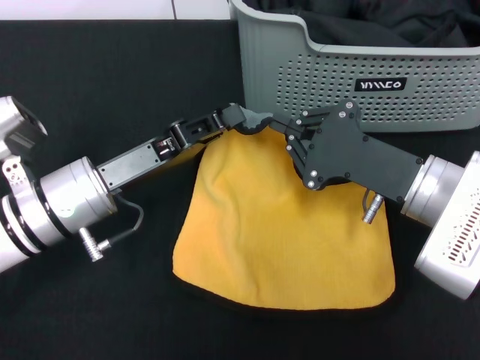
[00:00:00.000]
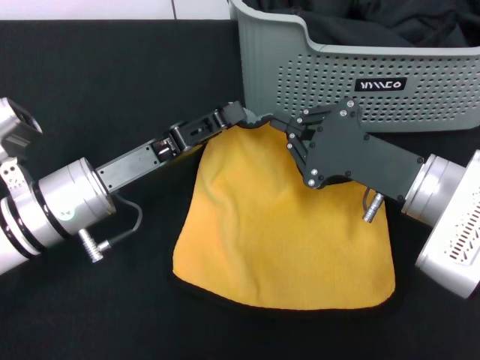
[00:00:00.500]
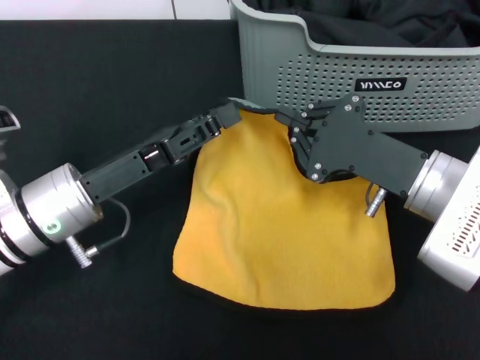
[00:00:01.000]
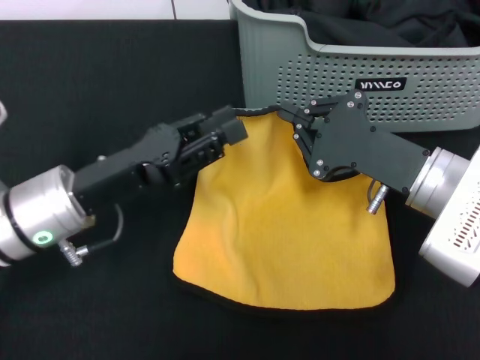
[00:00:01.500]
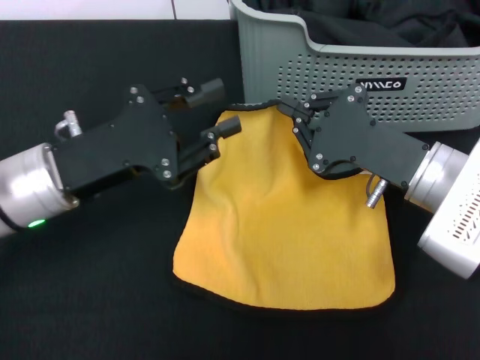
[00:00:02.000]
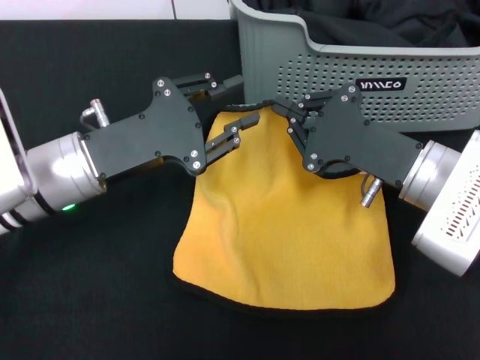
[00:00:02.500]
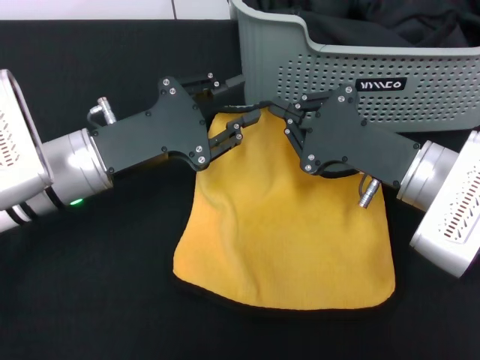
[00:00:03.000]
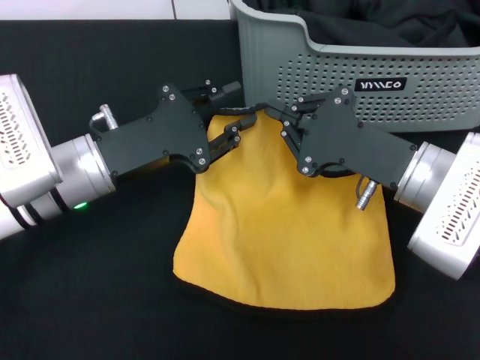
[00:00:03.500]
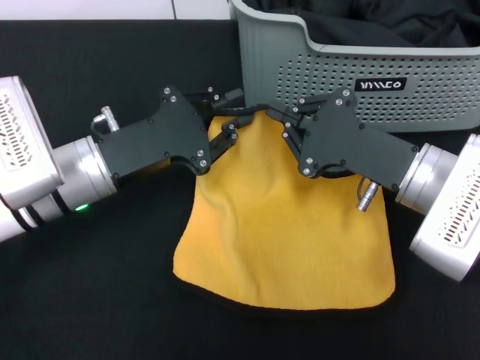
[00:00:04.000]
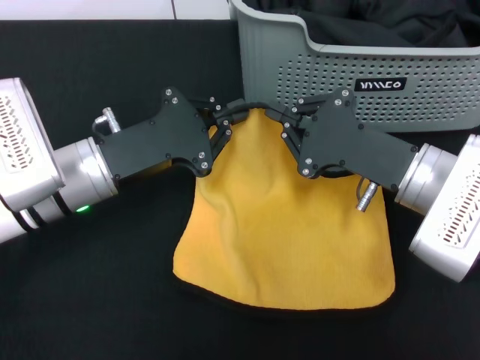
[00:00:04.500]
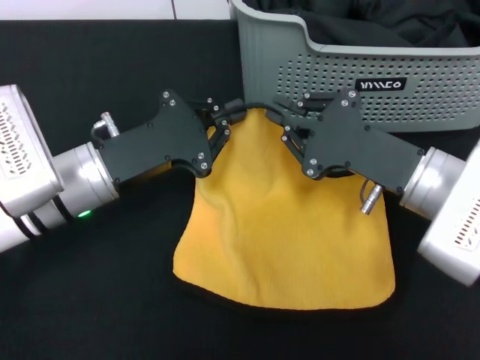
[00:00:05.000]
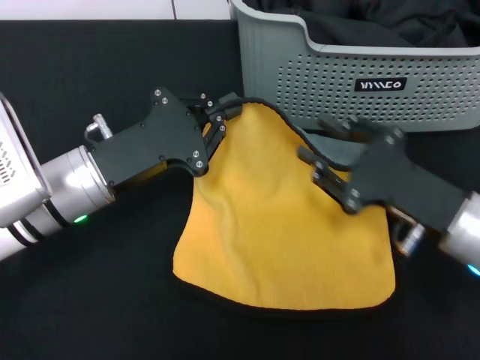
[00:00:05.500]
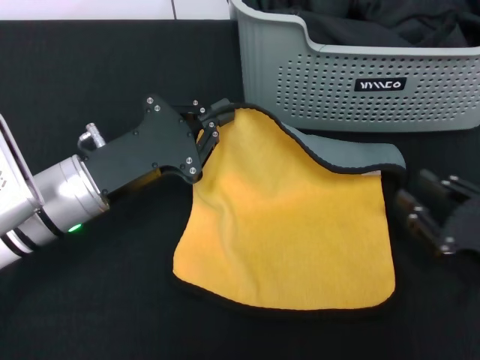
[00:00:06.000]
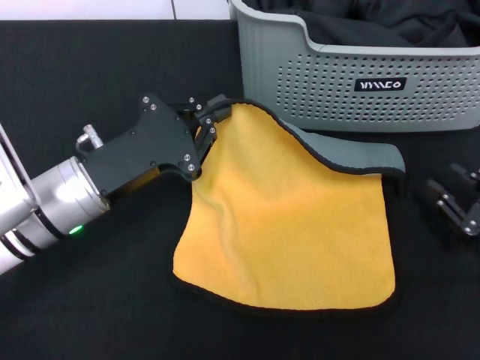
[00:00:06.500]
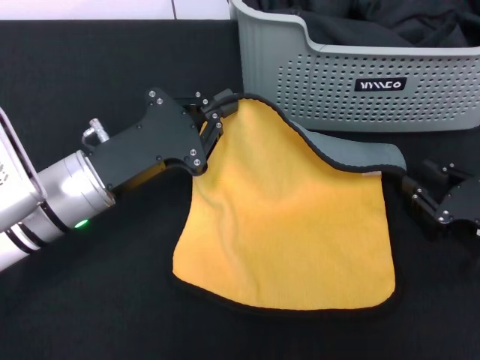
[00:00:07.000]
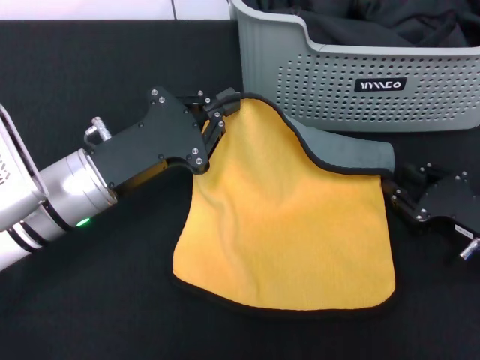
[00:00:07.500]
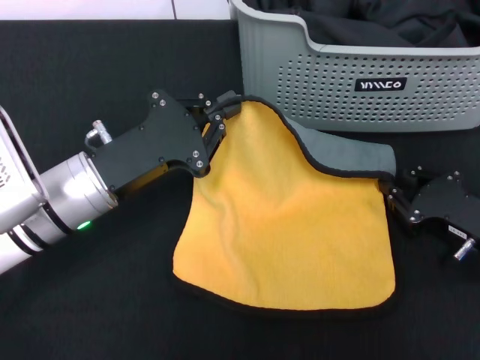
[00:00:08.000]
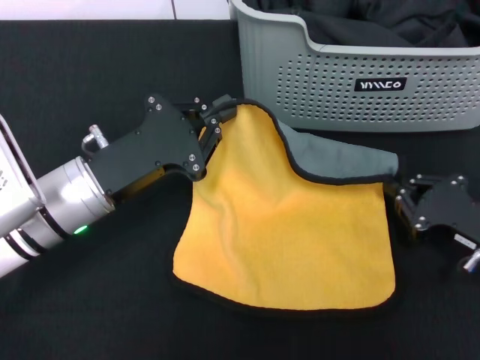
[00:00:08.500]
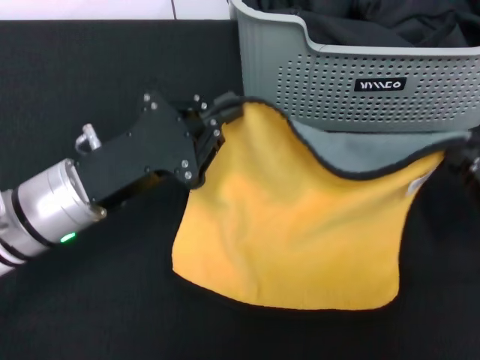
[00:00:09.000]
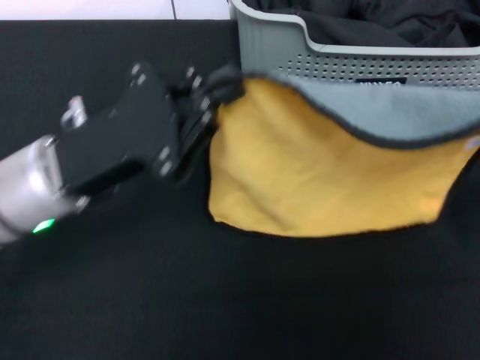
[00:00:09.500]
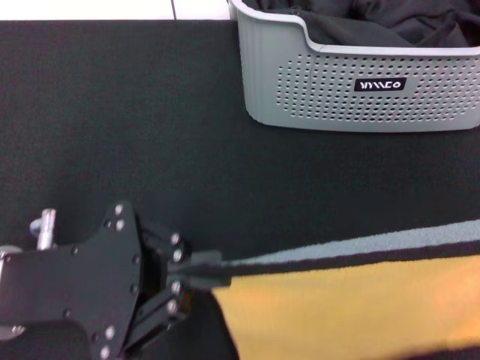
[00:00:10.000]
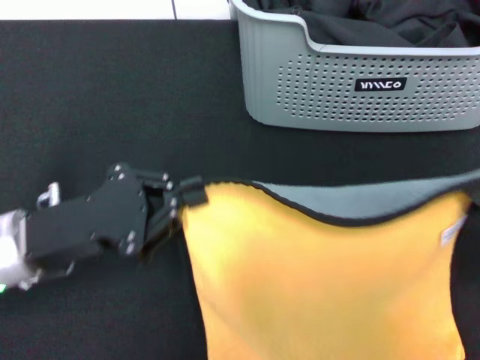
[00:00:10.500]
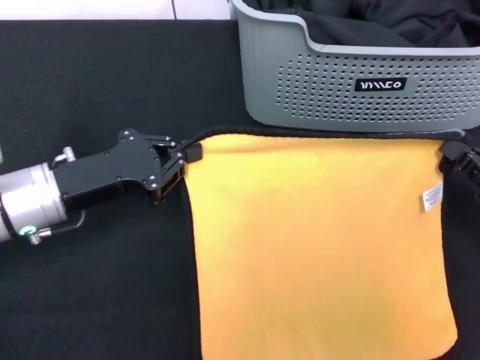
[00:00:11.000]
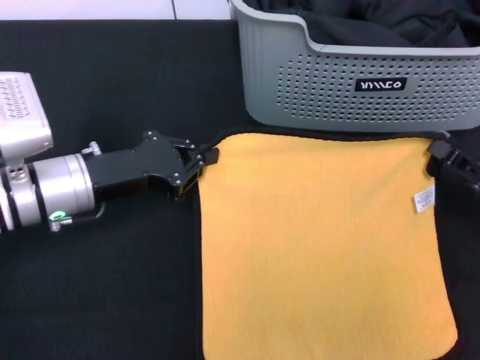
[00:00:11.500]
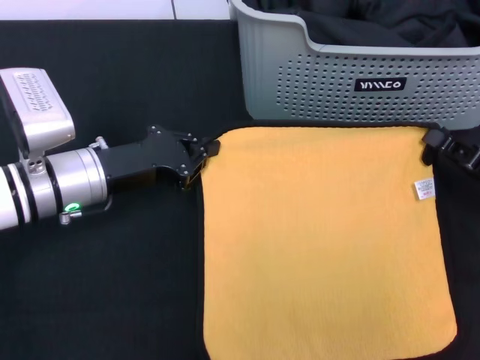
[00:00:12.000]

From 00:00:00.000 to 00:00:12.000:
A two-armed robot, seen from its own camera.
Task of the whole recording: pick up the towel from the storage box and lay it flat on the black tablecloth.
From 00:00:00.000 to 00:00:02.000: The left gripper opens.
From 00:00:02.000 to 00:00:04.000: There are only small adjustments of the grippers.
From 00:00:04.000 to 00:00:06.000: The right gripper shifts approximately 15 cm to the right, backward and downward, and opens up. The left gripper closes its fingers.
From 00:00:06.000 to 00:00:08.000: The right gripper moves forward, some 5 cm.
From 00:00:08.000 to 00:00:10.000: The right gripper shifts roughly 25 cm backward, upward and to the right. Meanwhile the left gripper travels backward and upward by roughly 10 cm.
From 00:00:10.000 to 00:00:12.000: The left gripper heads forward and downward, covering some 15 cm; the right gripper shifts some 20 cm forward and downward.

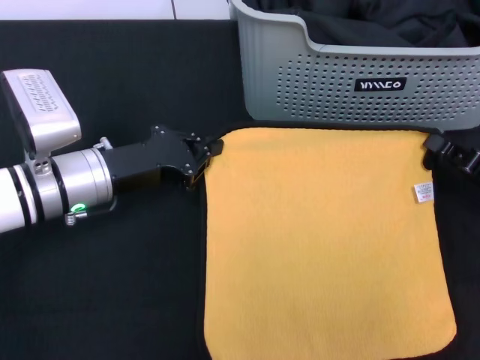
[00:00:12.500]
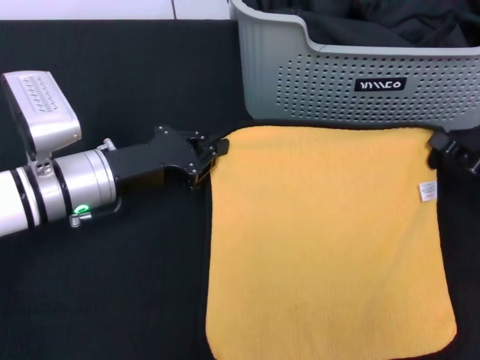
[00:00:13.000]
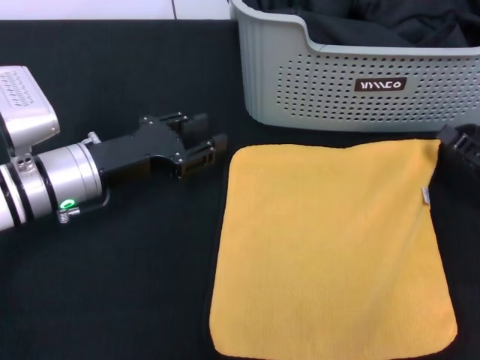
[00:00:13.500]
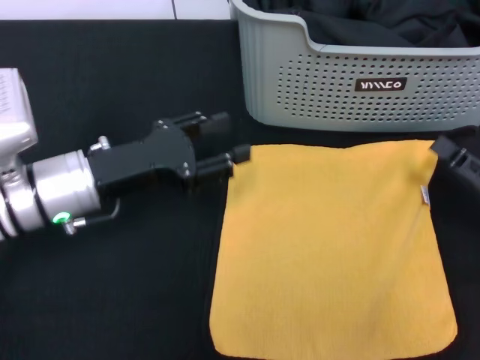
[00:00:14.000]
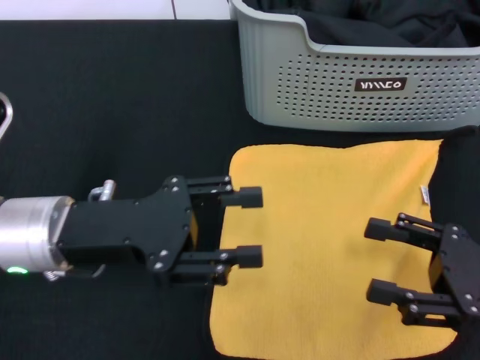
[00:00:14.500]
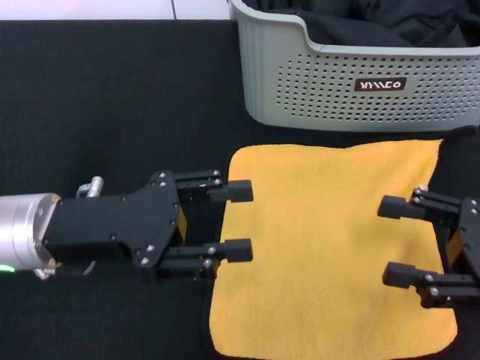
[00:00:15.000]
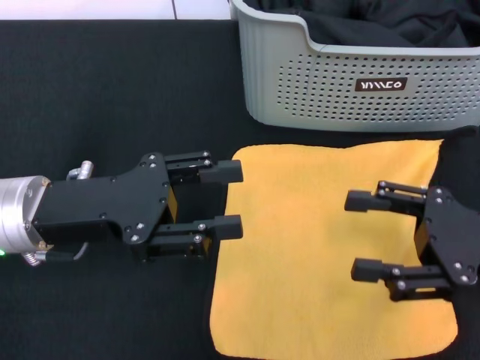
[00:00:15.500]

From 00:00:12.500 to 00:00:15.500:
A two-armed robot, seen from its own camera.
Task of the whole recording: pick up the towel from the storage box and lay it flat on the black tablecloth.
From 00:00:12.500 to 00:00:14.000: The right gripper opens, while the left gripper opens its fingers.
From 00:00:14.000 to 00:00:15.500: The right gripper travels upward and to the left by about 10 cm. The left gripper shifts by roughly 5 cm.

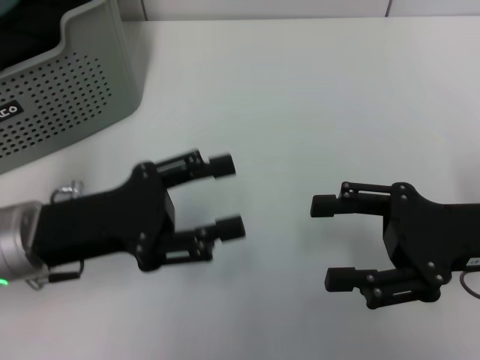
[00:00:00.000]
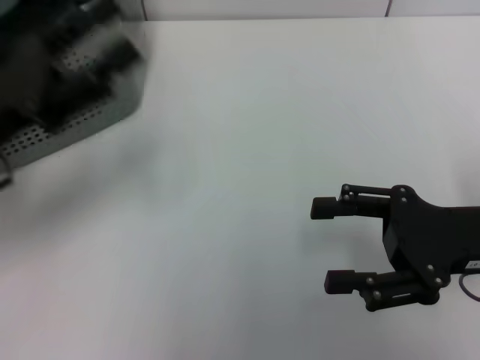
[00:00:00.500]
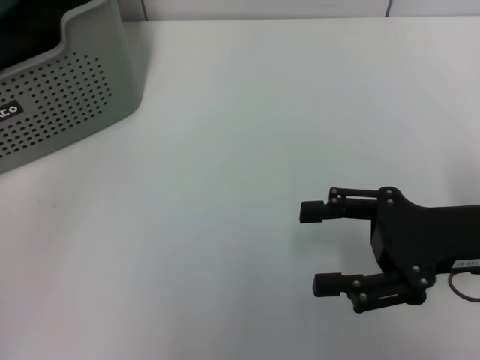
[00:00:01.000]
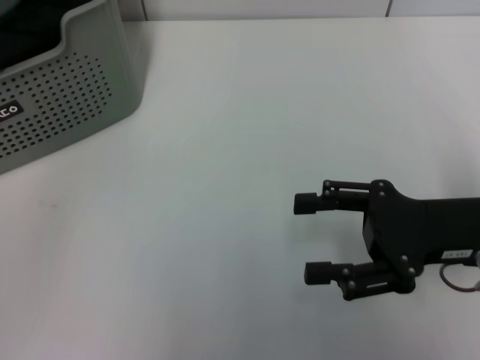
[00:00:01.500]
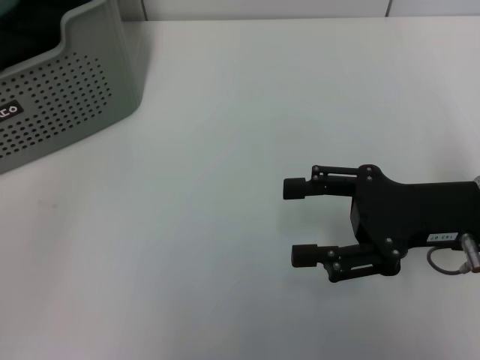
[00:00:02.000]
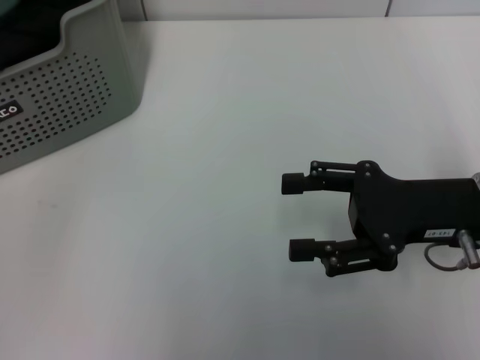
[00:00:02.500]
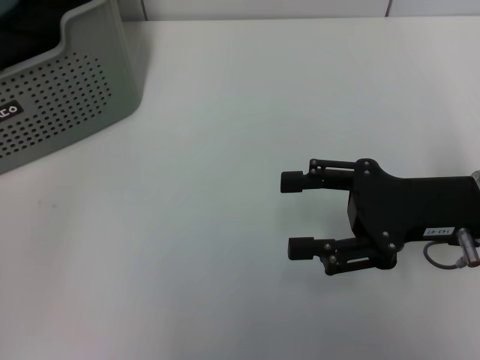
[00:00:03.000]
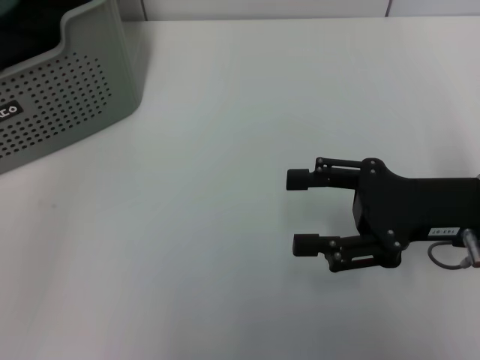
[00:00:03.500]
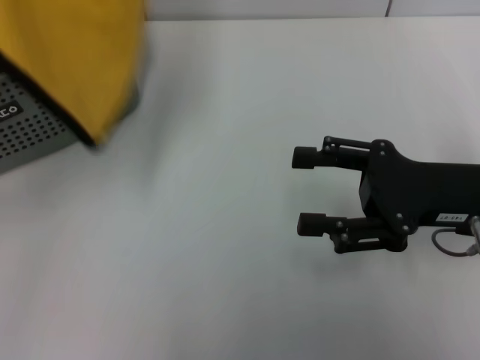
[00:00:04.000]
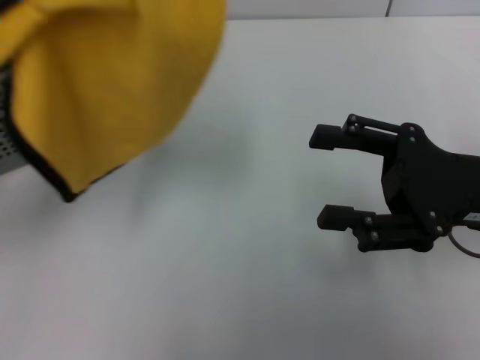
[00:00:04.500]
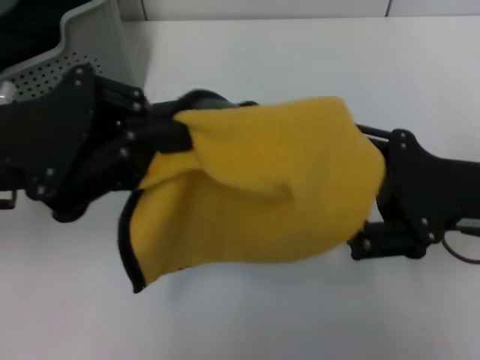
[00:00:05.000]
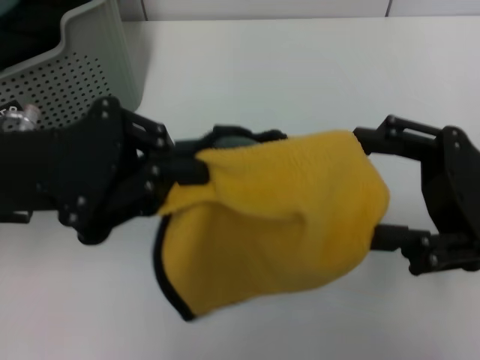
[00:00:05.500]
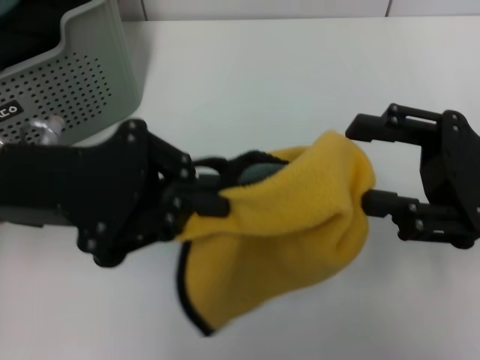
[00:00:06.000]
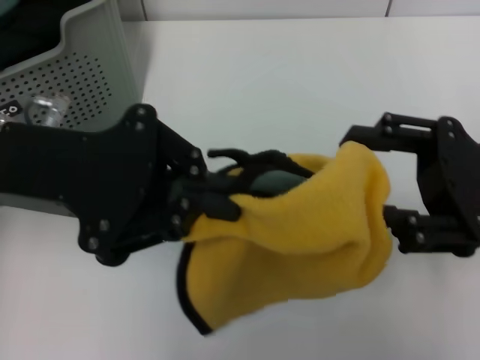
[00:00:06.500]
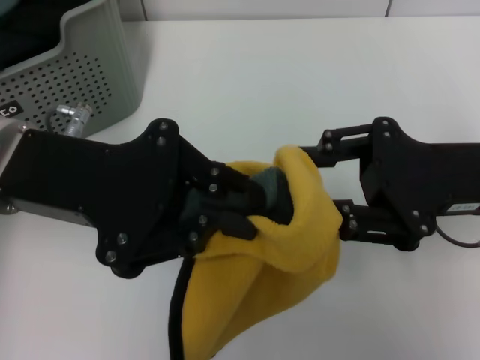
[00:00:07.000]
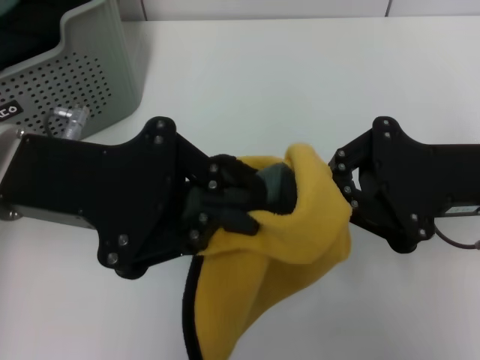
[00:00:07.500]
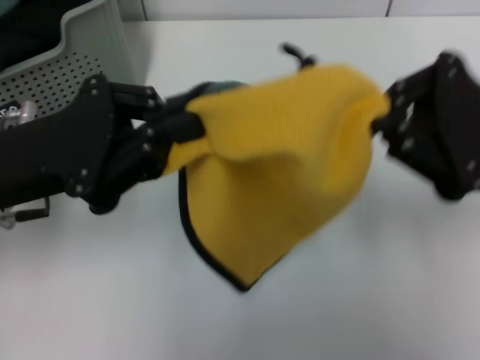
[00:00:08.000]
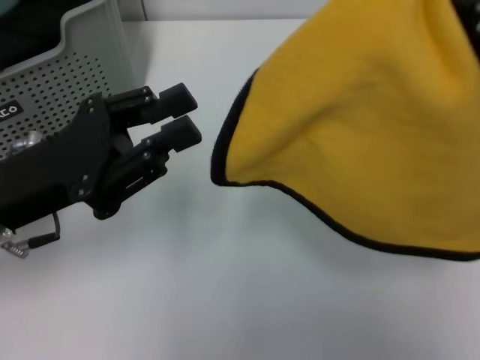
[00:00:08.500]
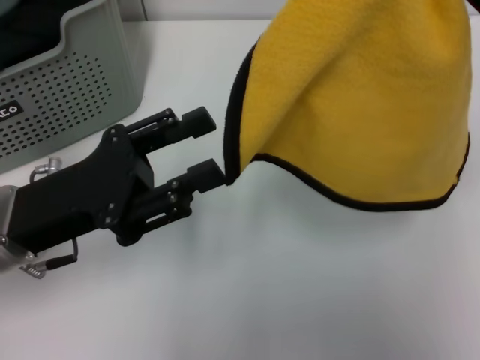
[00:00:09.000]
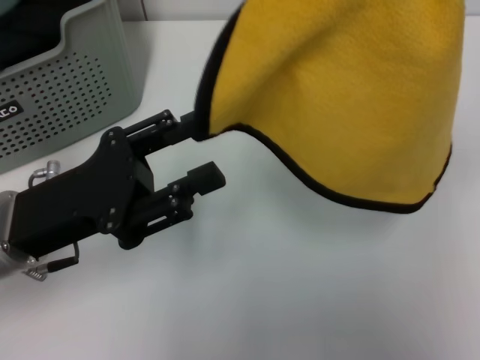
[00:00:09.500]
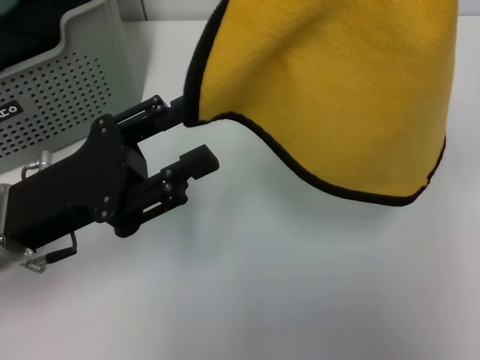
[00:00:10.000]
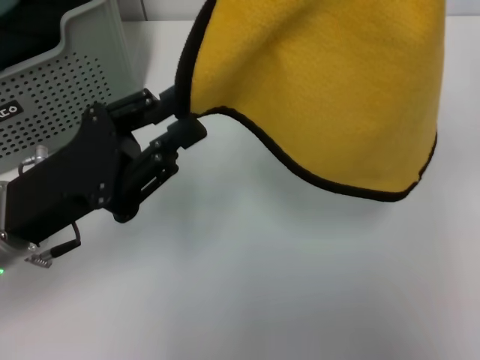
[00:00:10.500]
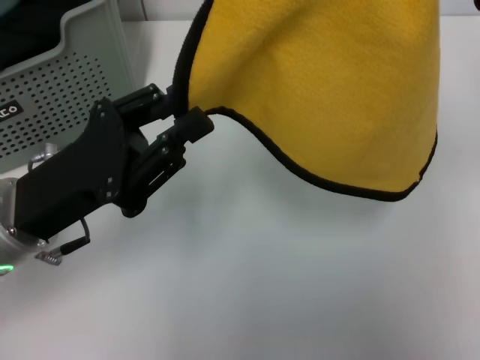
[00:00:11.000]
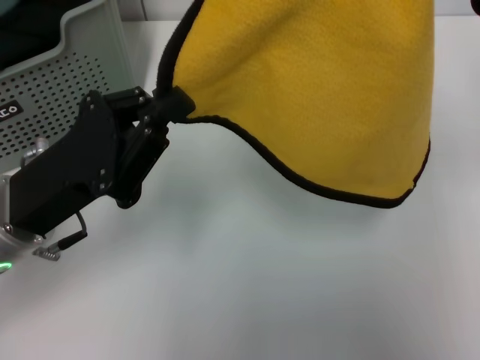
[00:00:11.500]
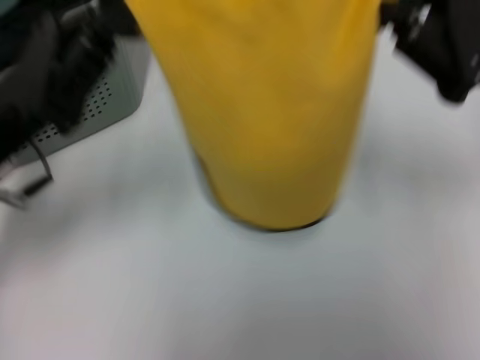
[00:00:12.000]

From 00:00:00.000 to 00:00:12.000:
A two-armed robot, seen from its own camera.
Task of the whole recording: pick up the towel from the storage box and lay it flat on the table.
Step, from 00:00:00.000 to 00:00:03.000: Pick up a towel with the left gripper.
From 00:00:00.000 to 00:00:02.000: The left gripper shifts some 25 cm to the left, upward and forward.
From 00:00:02.000 to 00:00:04.000: The left gripper heads to the right and backward, covering roughly 10 cm, and closes its fingers.
From 00:00:04.000 to 00:00:06.000: The left gripper travels to the right and downward by approximately 10 cm.
From 00:00:06.000 to 00:00:08.000: The right gripper closes up.
From 00:00:08.000 to 00:00:10.000: The right gripper goes about 10 cm upward. The left gripper shifts by roughly 5 cm, and opens.
From 00:00:10.000 to 00:00:12.000: The right gripper heads downward, covering some 5 cm. The left gripper closes up.
